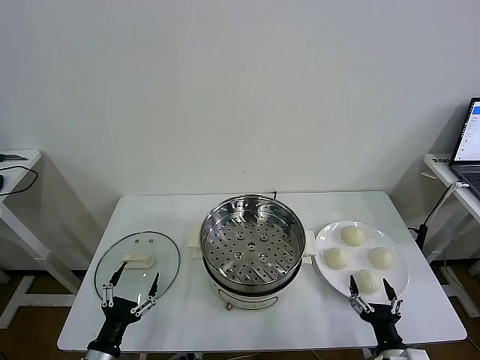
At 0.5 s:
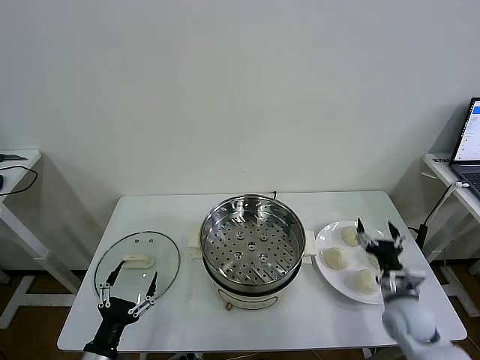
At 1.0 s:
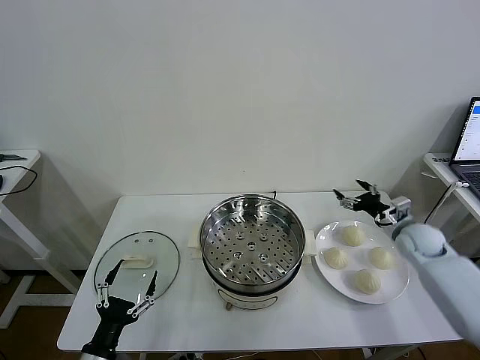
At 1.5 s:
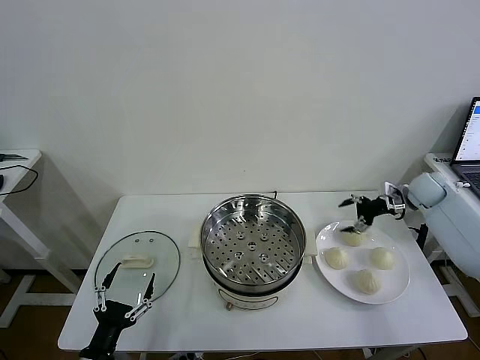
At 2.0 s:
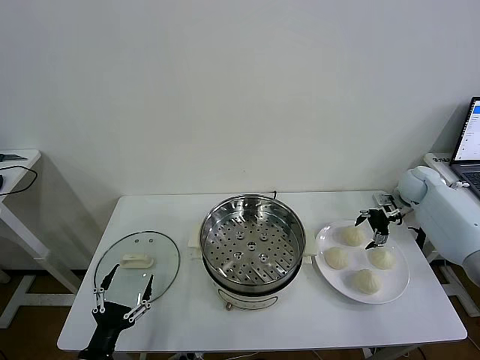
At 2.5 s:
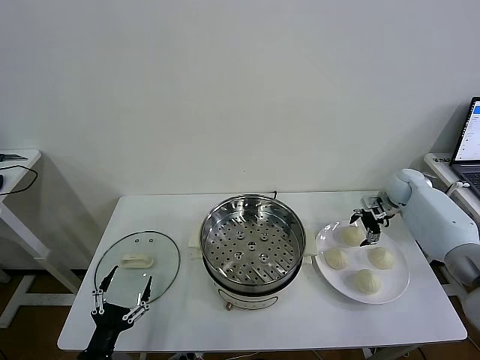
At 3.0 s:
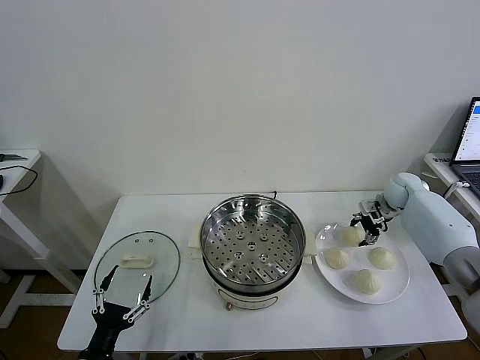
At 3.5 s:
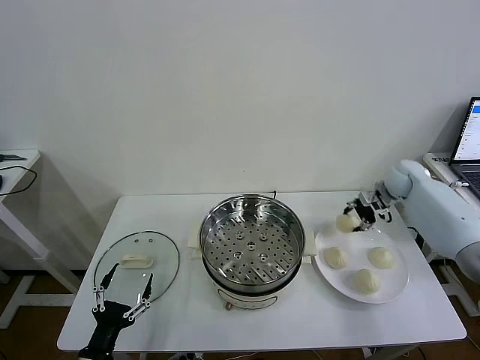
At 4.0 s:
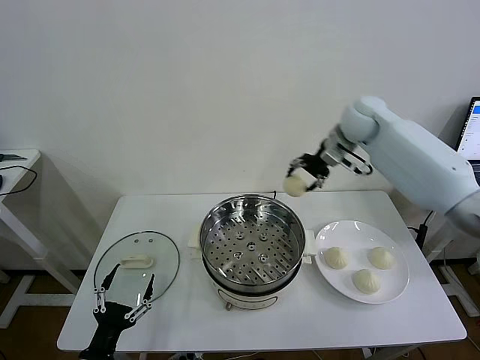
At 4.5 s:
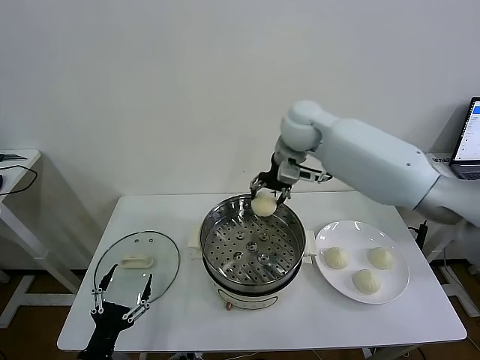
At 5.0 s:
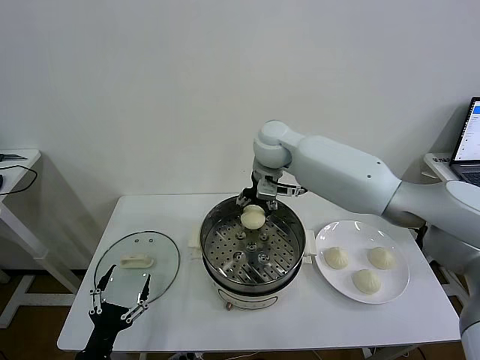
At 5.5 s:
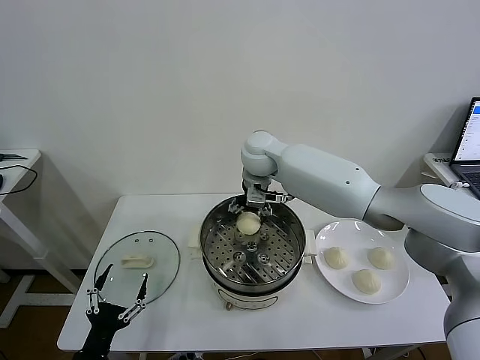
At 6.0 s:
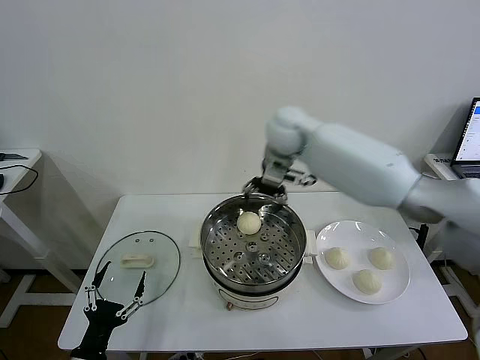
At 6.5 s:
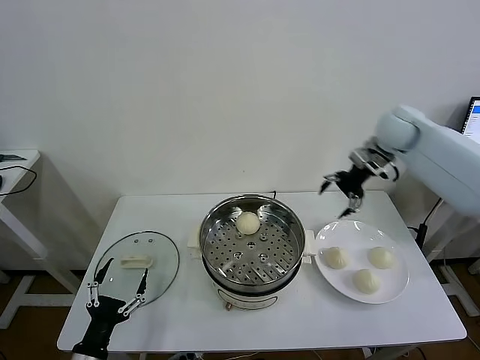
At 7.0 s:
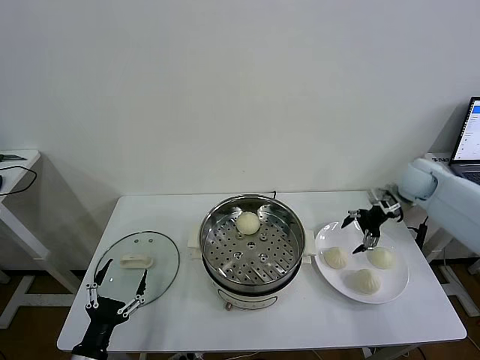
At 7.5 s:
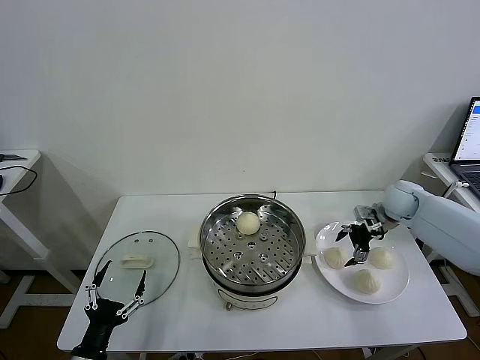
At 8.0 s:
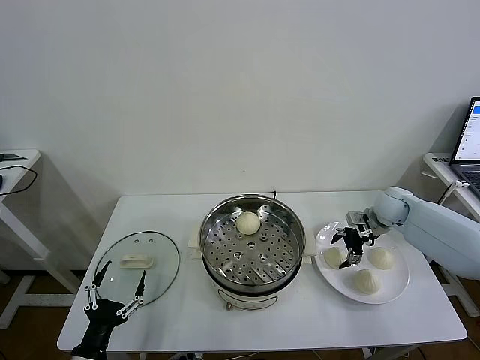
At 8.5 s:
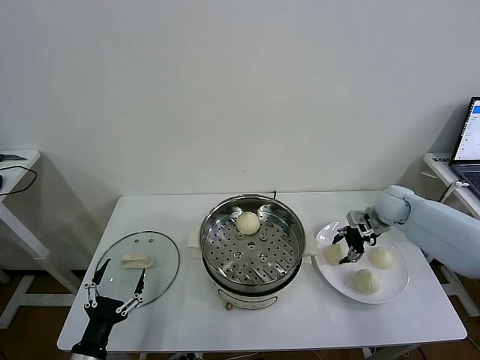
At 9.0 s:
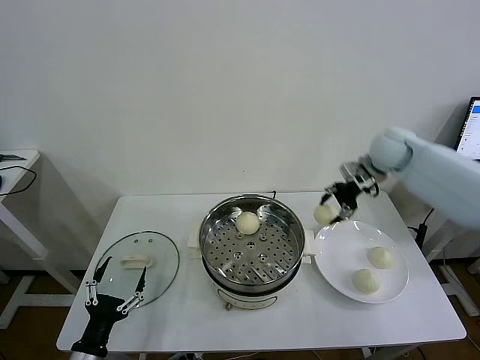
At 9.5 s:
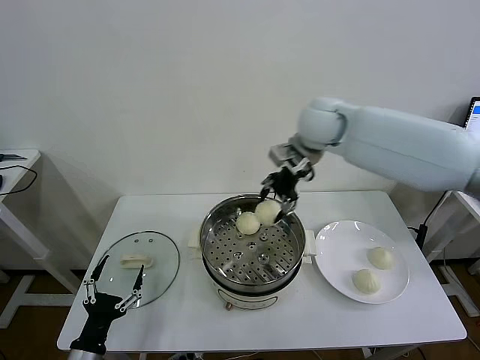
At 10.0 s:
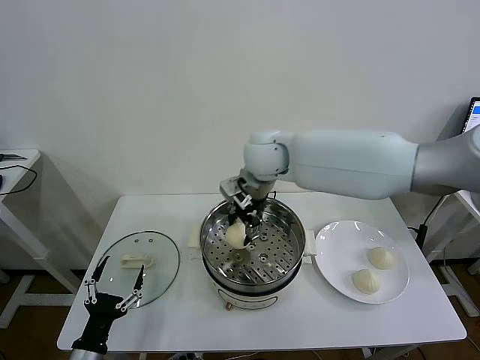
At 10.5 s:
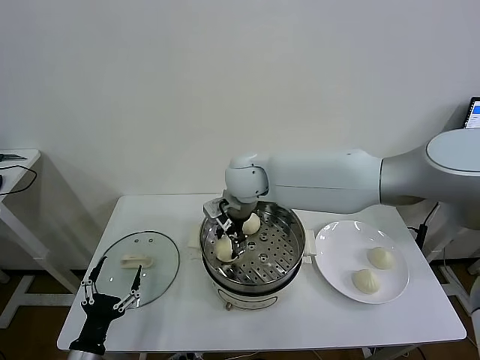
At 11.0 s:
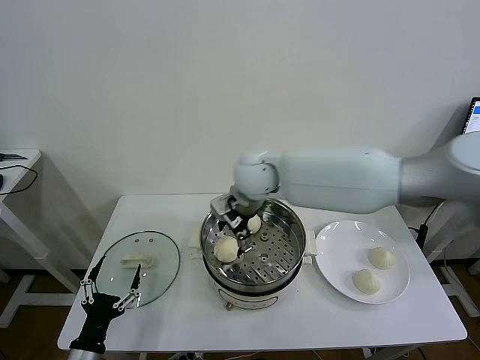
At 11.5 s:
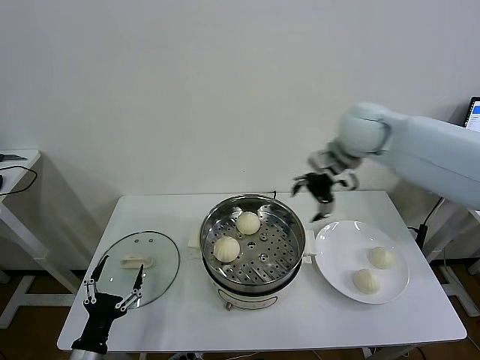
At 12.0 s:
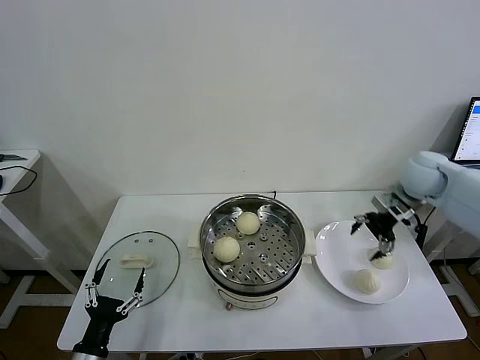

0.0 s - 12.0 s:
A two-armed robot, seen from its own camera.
Task of the whole recording: take steamed baozi put them in steamer then cover it.
Step, 0.0 s - 2.5 s: Grasp the baozi in the plate with right gripper.
Step, 3.5 s - 5.5 s: Place the baozi on the steamer with right gripper.
Step, 6.0 s - 8.0 s: Grasp the baozi in the plate with right gripper.
Step, 8.5 s - 10.5 s: Place the baozi on the steamer with right gripper.
2.0 s - 4.0 s: The right gripper goes some 30 cm to the left and upward, and closes.
4.0 s - 6.0 s: The right gripper is displaced to the left by some 5 cm, and opens.
6.0 s - 8.0 s: The right gripper moves to the right and downward, some 35 cm, and closes its fingers.
8.0 s - 10.0 s: The right gripper heads to the left and upward, covering some 40 cm, and closes its fingers.
10.0 s - 12.0 s: The right gripper goes approximately 35 cm to the right, and opens its fingers.

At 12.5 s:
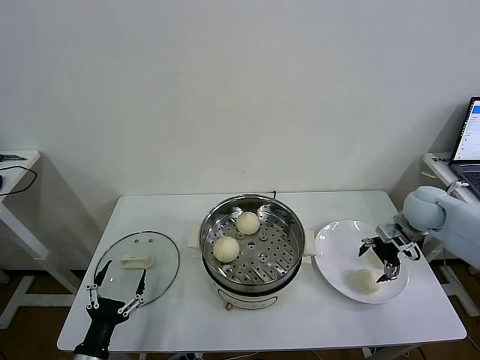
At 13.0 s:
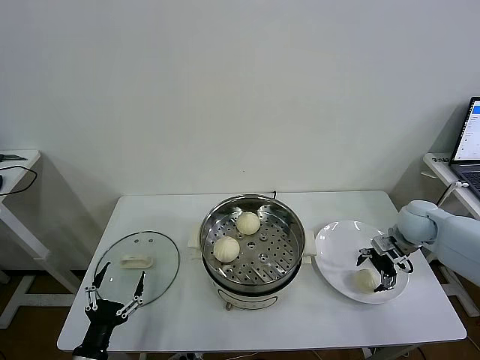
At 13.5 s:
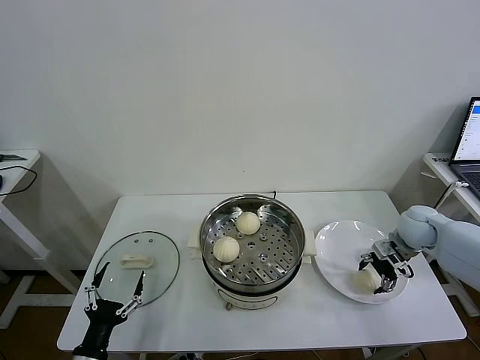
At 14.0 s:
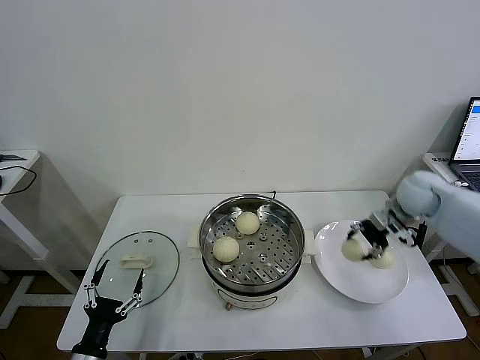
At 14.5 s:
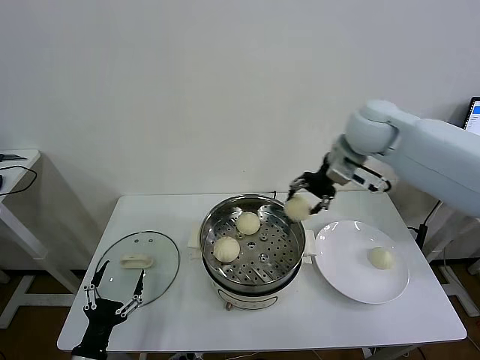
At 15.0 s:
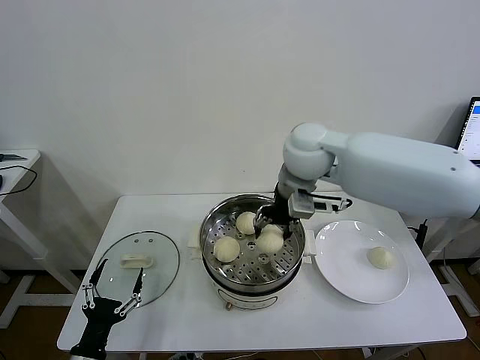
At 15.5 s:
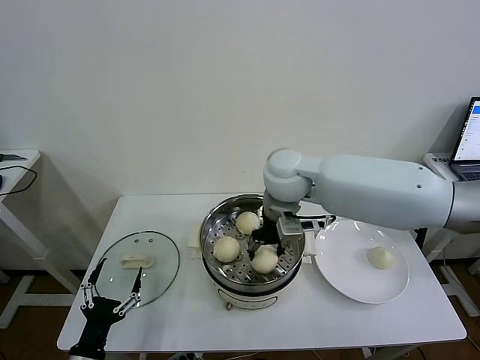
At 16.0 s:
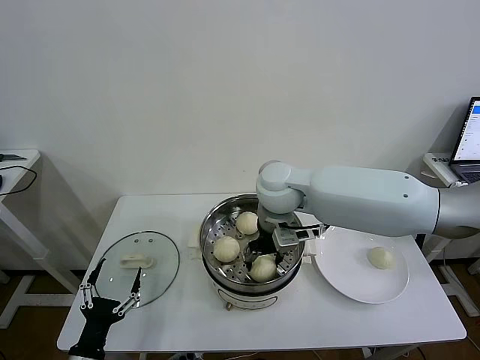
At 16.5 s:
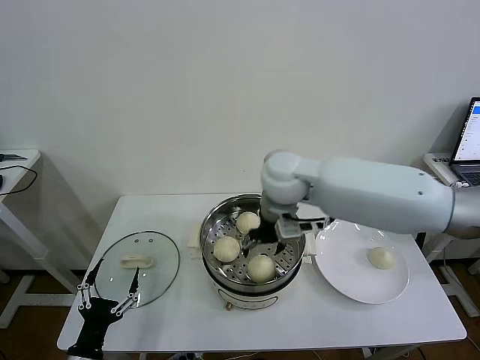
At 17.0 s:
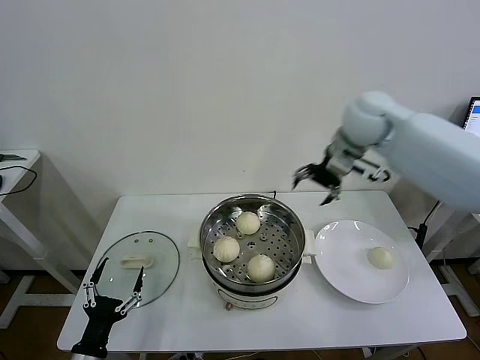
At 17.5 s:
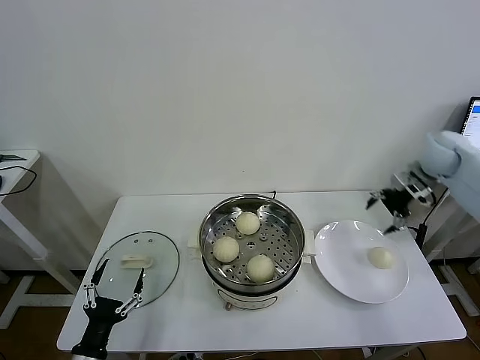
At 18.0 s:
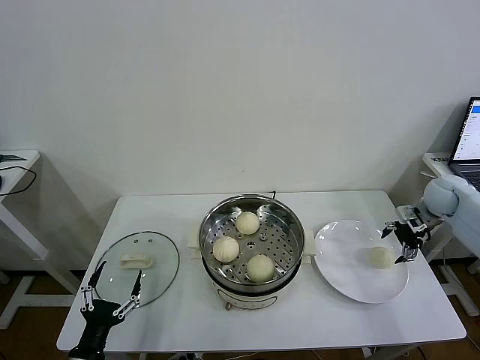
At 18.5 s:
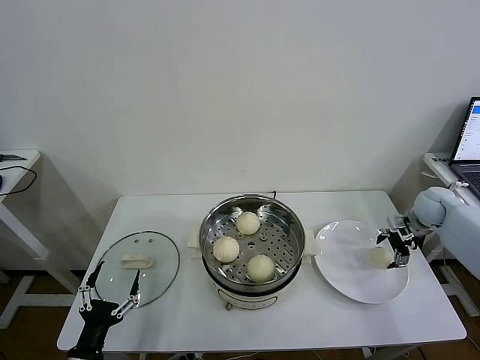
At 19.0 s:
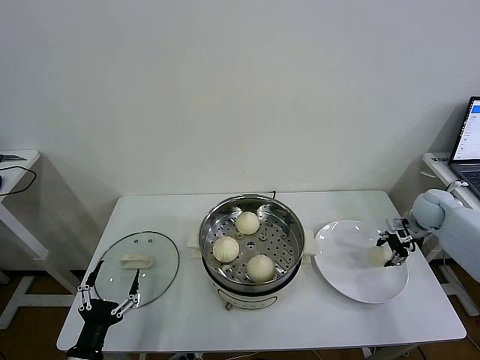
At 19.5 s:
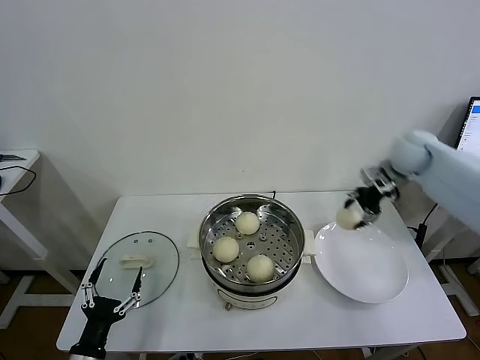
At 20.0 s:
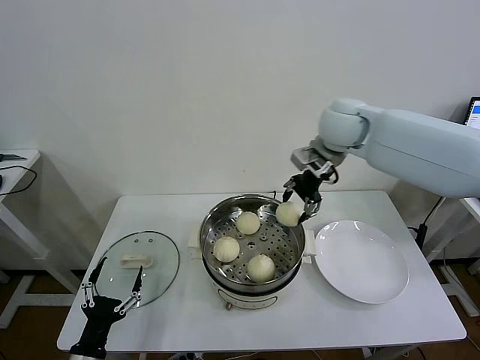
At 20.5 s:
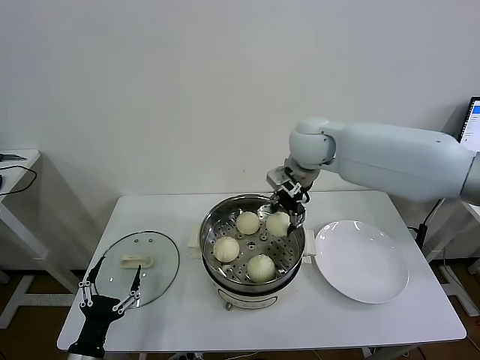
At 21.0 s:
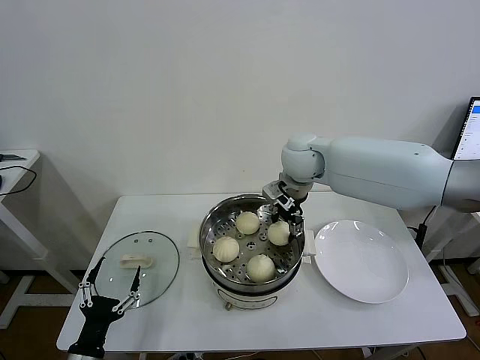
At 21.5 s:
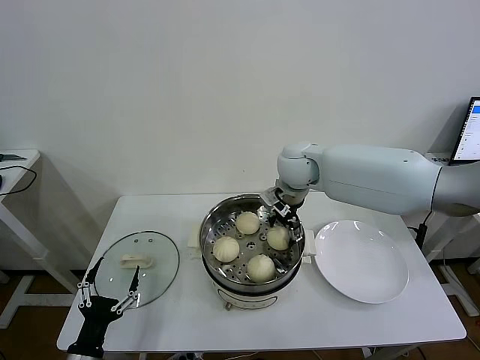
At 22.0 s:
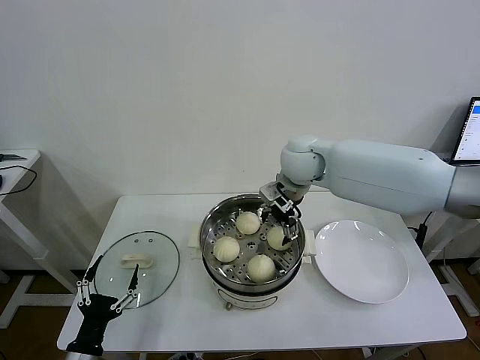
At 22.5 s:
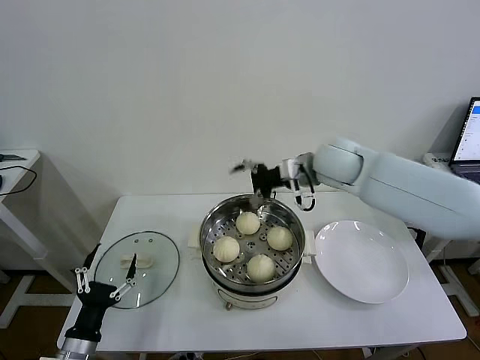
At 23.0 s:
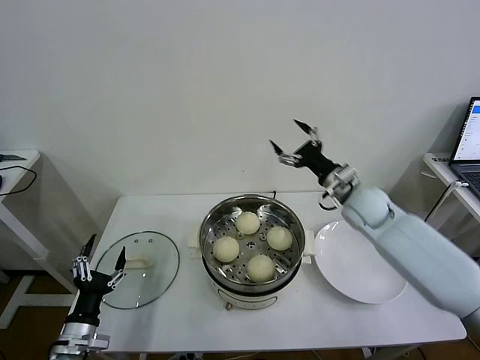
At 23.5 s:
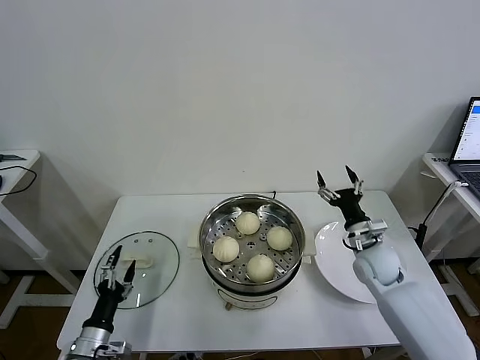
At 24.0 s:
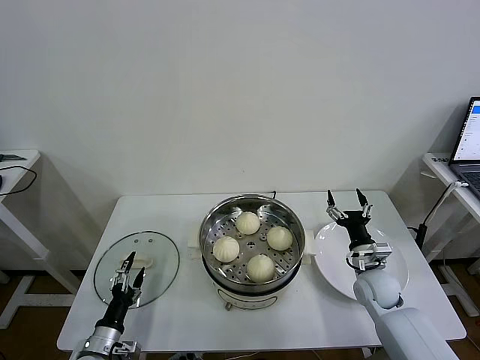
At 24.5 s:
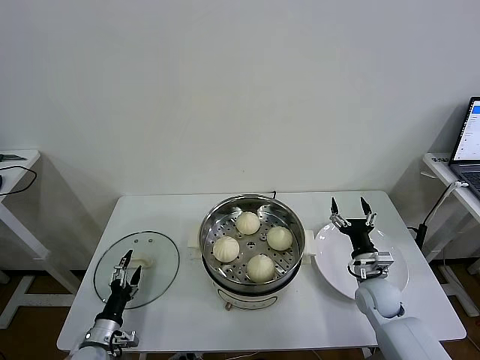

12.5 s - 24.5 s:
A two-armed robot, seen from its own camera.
Task of the whole recording: take steamed baozi put them in steamer then cover it.
Step, 14.0 s - 16.0 s: Place the baozi on the steamer with right gripper.
Step, 16.5 s - 18.5 s: Grasp the baozi in the plate with right gripper.
Step, 19.0 s - 21.5 s: Place the baozi on the steamer with right gripper.
12.5 s - 14.5 s: The right gripper goes roughly 30 cm upward and to the left, and closes up.
14.5 s - 16.5 s: The right gripper goes roughly 15 cm to the left, downward and backward, and opens.
16.5 s - 18.5 s: The right gripper is displaced to the right and downward by approximately 40 cm.
18.5 s - 20.5 s: The right gripper shifts roughly 40 cm to the left and upward, and closes up.
20.5 s - 22.5 s: The right gripper goes some 5 cm to the right, and opens up.
22.5 s - 24.5 s: The left gripper heads downward and forward, covering about 10 cm; the right gripper heads downward, backward and to the right, covering some 35 cm.

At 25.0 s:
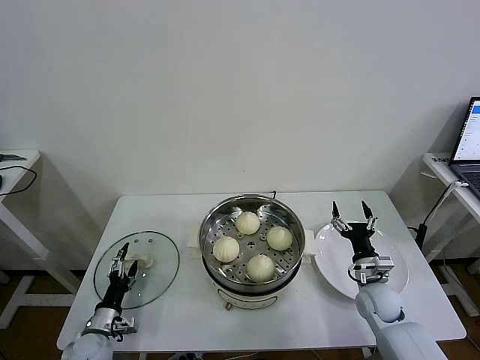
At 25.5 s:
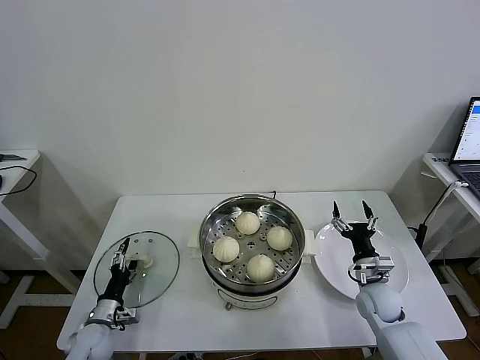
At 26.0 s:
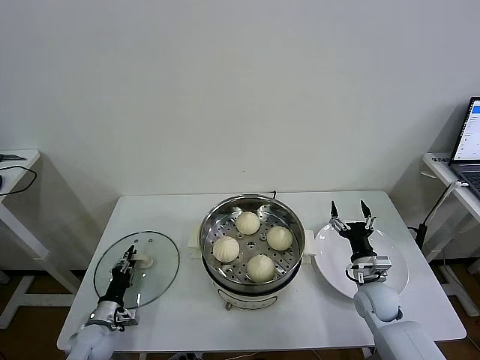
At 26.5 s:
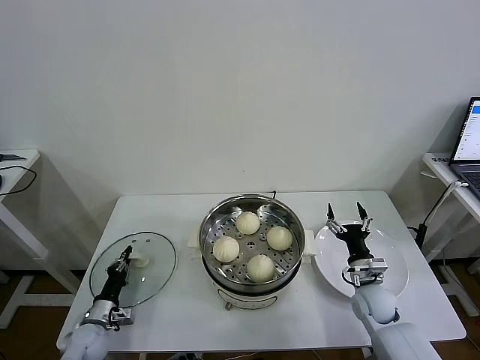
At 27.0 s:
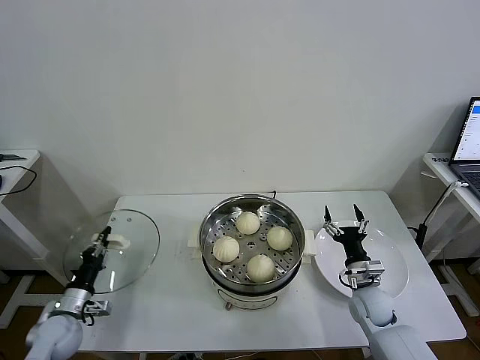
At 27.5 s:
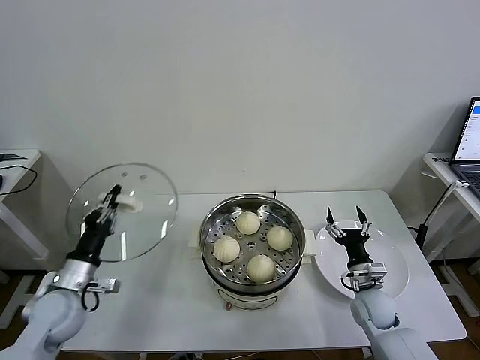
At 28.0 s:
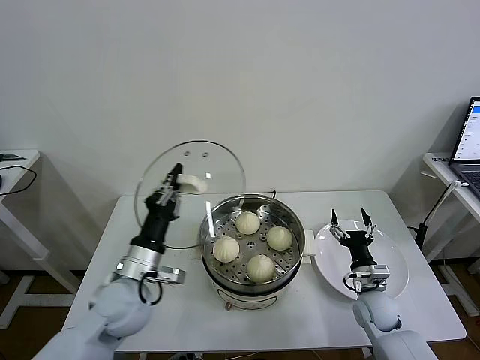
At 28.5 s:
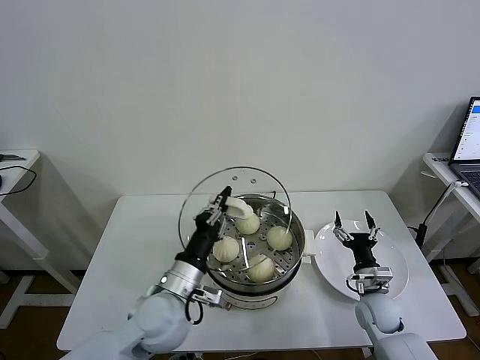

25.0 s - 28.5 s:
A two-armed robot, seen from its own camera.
Task of the whole recording: take steamed baozi put them in steamer then cover it.
25.0 s - 27.0 s: The left gripper heads upward and to the left, covering some 5 cm, and closes.
27.0 s - 28.5 s: The left gripper shifts some 30 cm to the right and upward.
